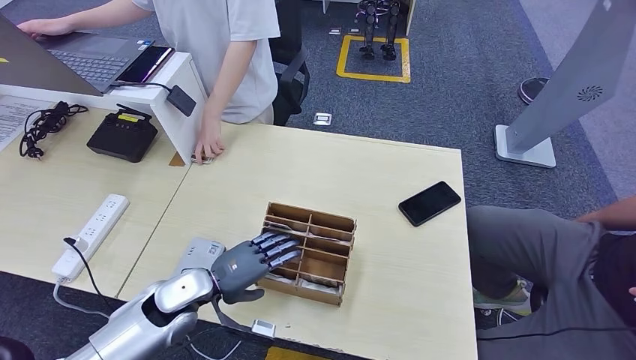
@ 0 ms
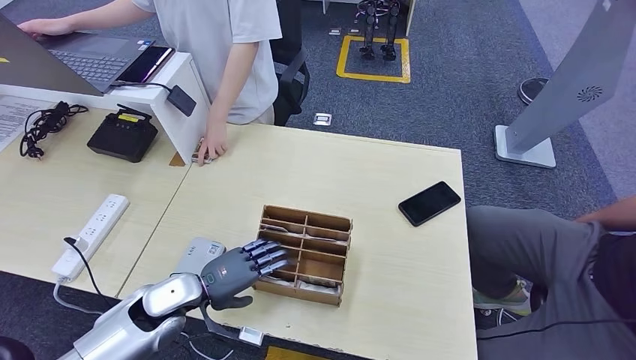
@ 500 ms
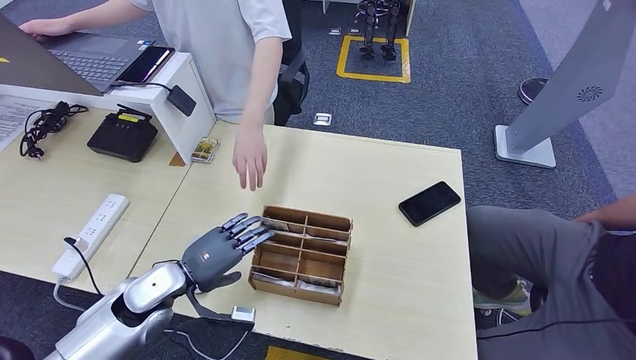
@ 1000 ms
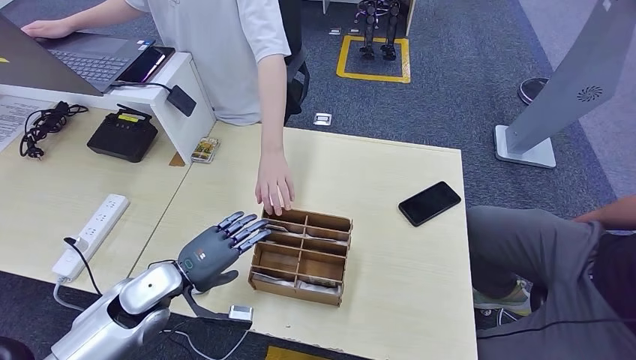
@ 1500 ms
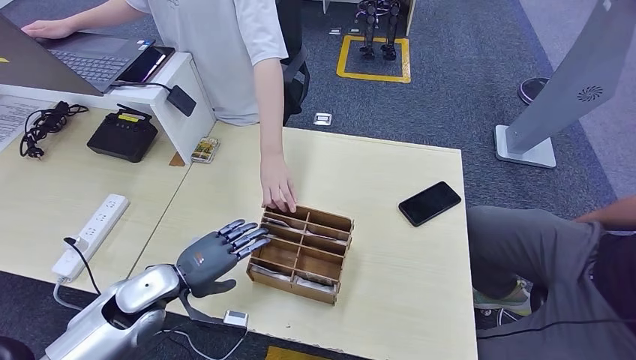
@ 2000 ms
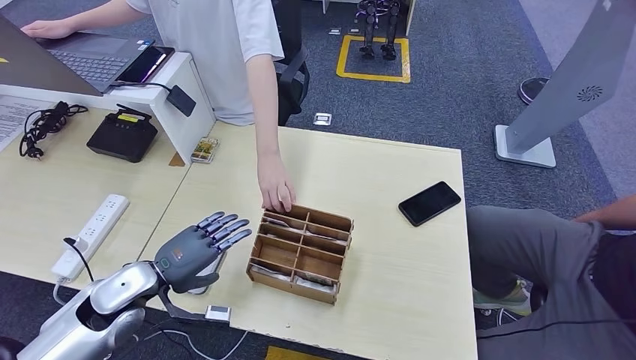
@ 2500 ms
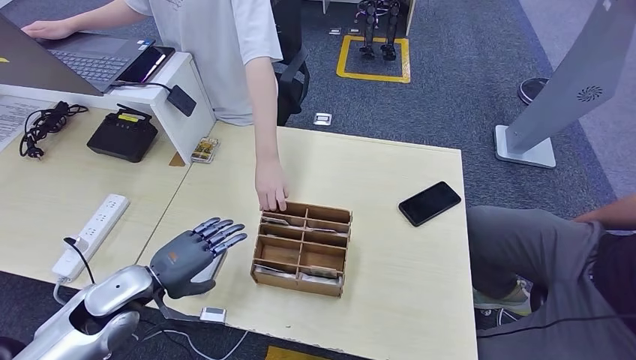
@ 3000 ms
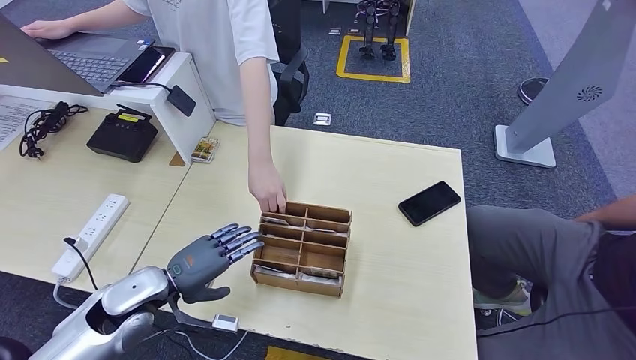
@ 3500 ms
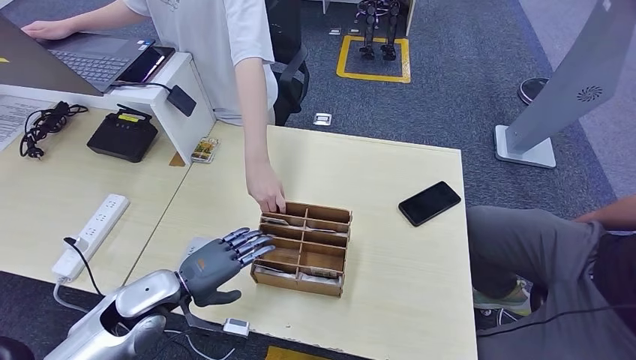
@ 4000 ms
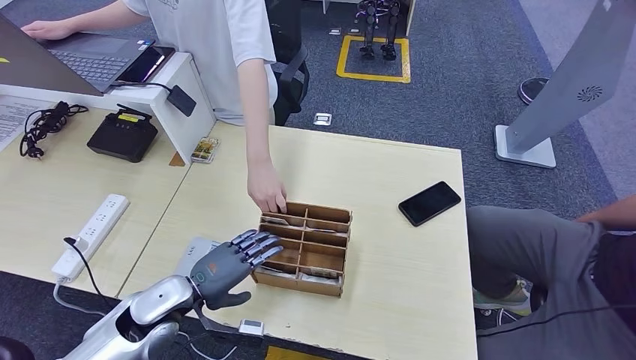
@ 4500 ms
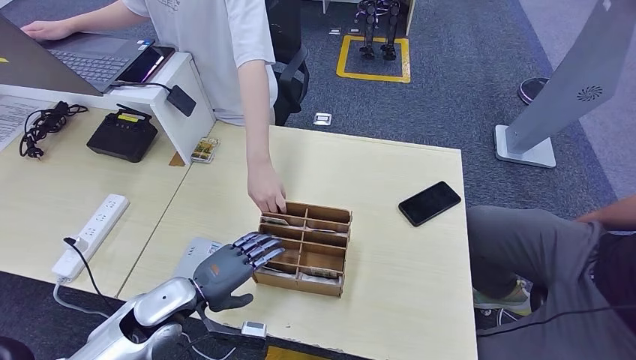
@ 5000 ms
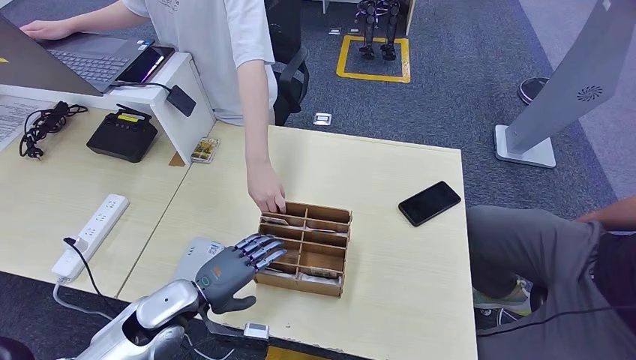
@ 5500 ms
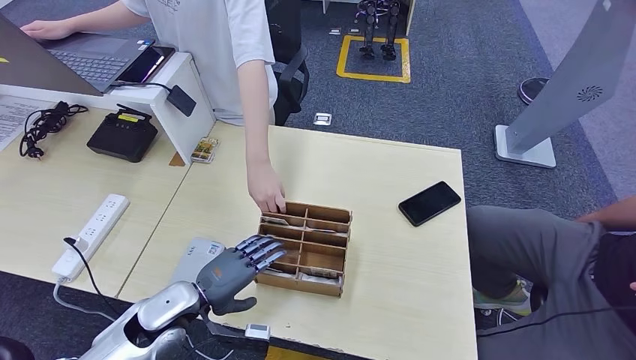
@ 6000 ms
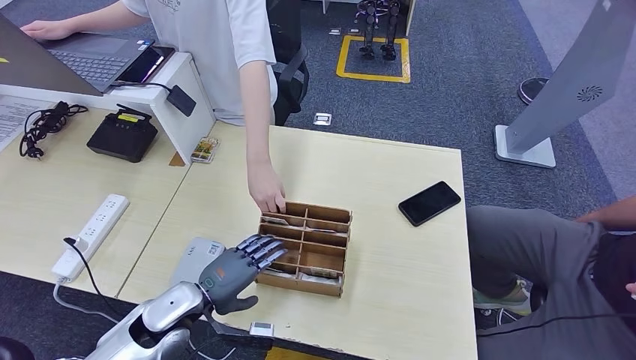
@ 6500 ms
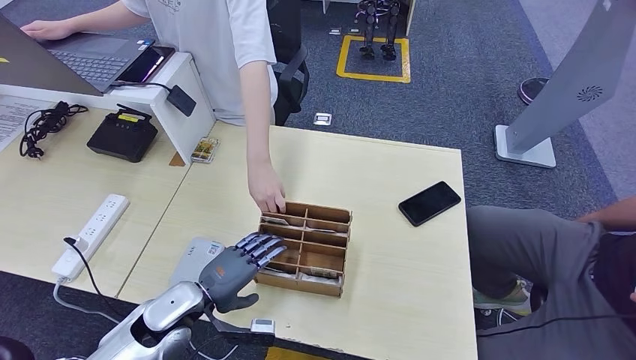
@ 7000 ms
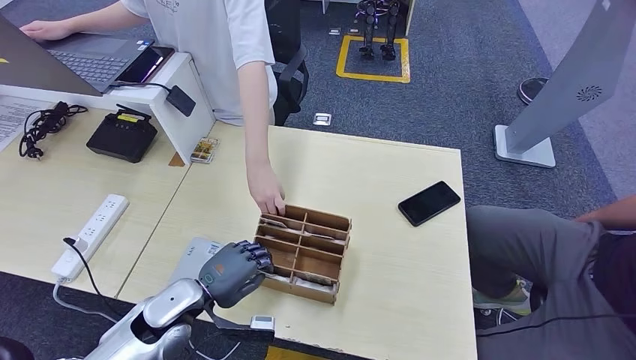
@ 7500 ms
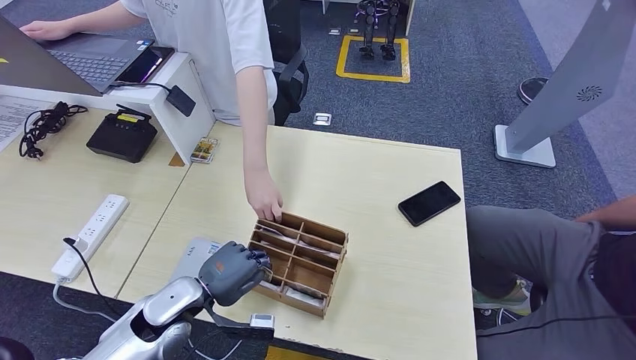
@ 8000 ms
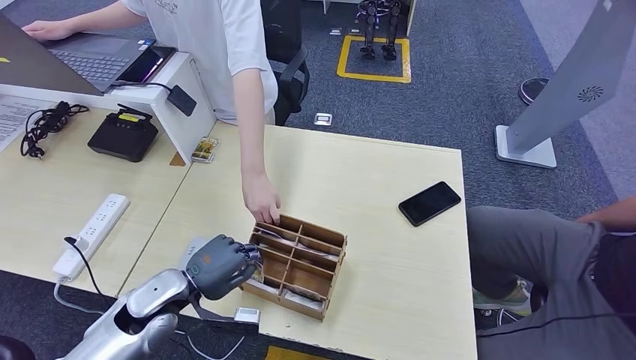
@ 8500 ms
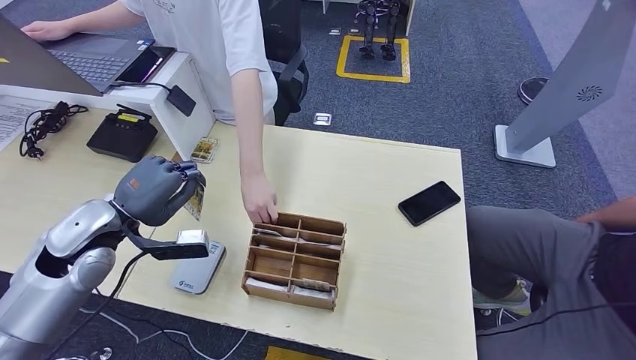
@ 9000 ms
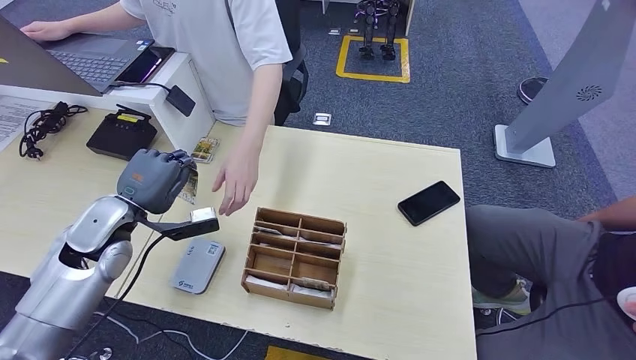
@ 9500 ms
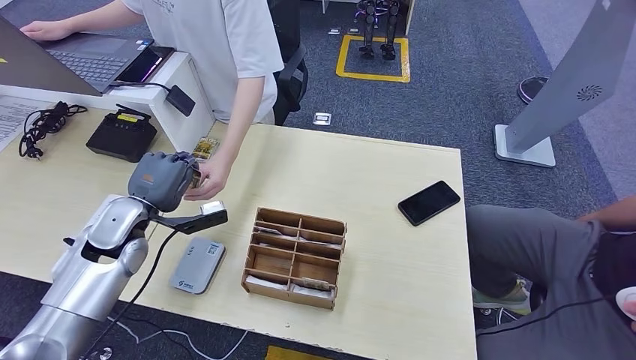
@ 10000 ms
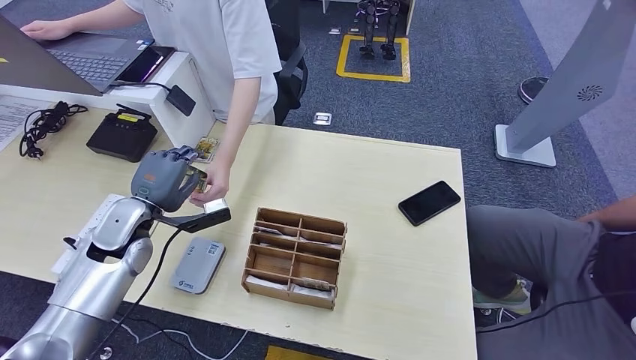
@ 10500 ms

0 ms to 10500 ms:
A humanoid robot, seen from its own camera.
Step, 0 ms to 7500 ms: Pick up the room key from the key card box.
Step, 8000 ms to 10500 ms: Hand the room key to the person.
0 ms to 2000 ms: The left hand moves approximately 5 cm.
2000 ms to 8500 ms: The hands stay close to where they were, moving slightly.
8500 ms to 10500 ms: The left hand shifts some 15 cm forward, to the left and upward.

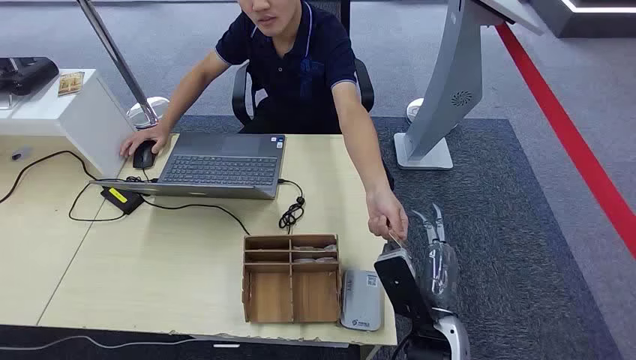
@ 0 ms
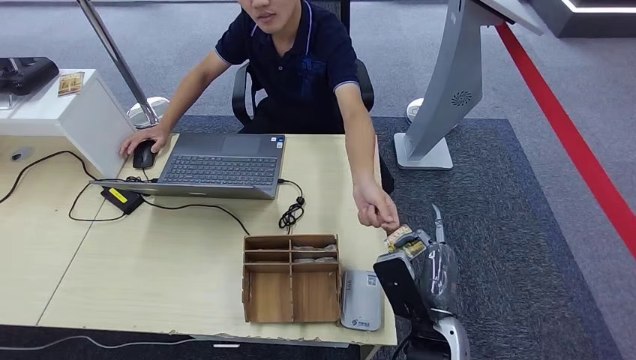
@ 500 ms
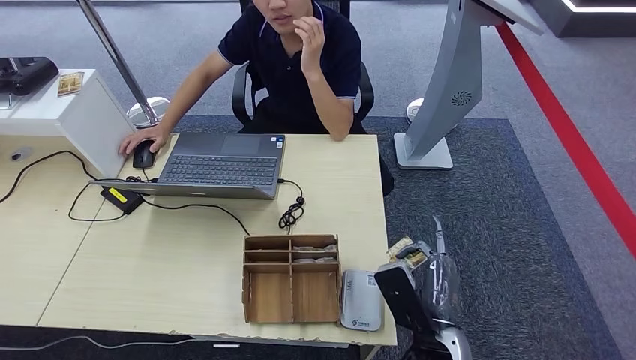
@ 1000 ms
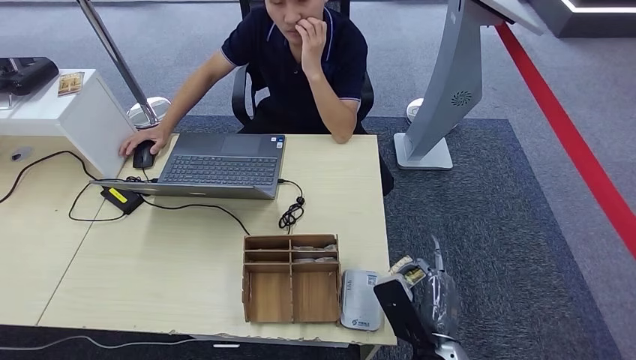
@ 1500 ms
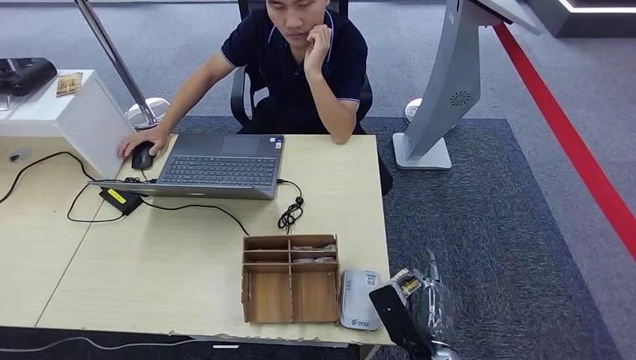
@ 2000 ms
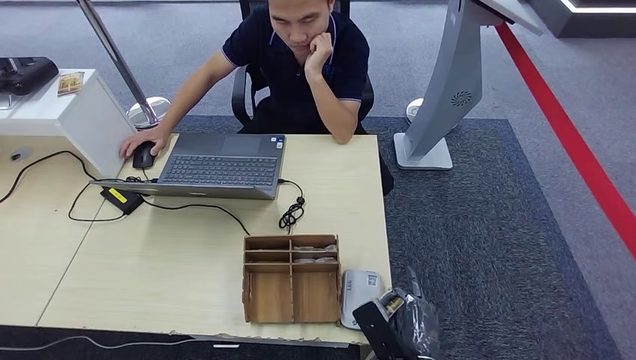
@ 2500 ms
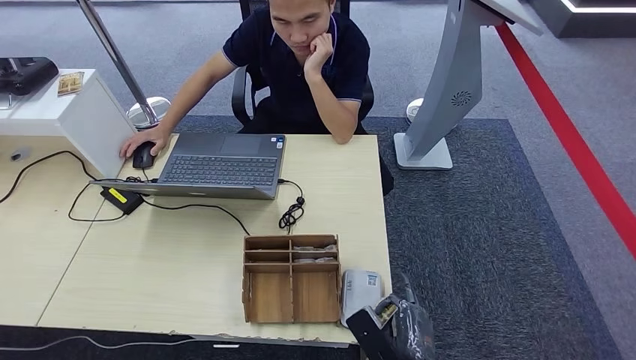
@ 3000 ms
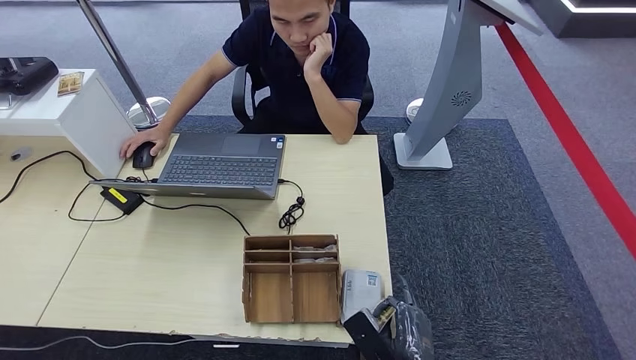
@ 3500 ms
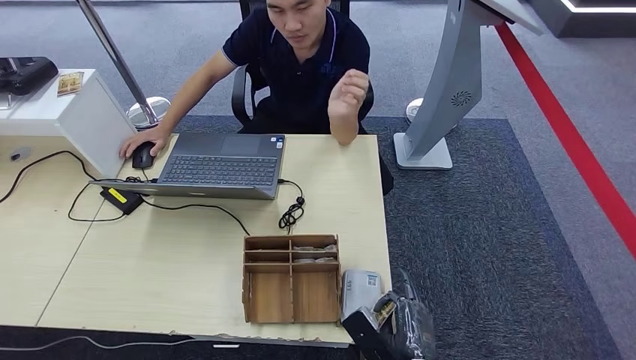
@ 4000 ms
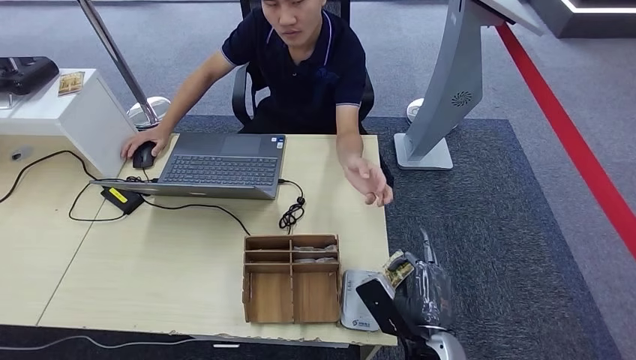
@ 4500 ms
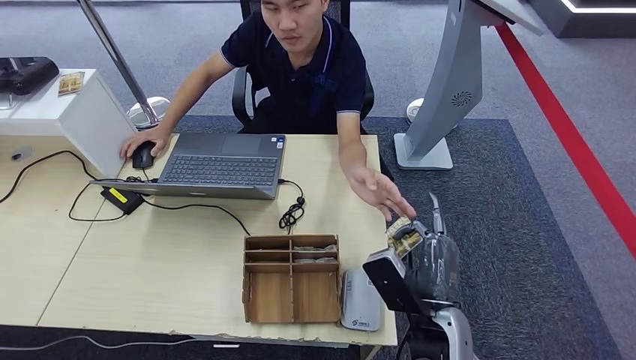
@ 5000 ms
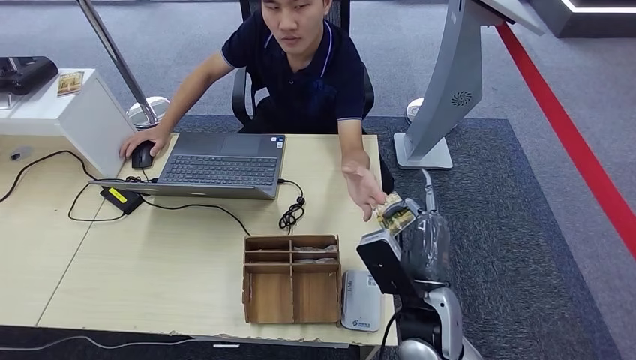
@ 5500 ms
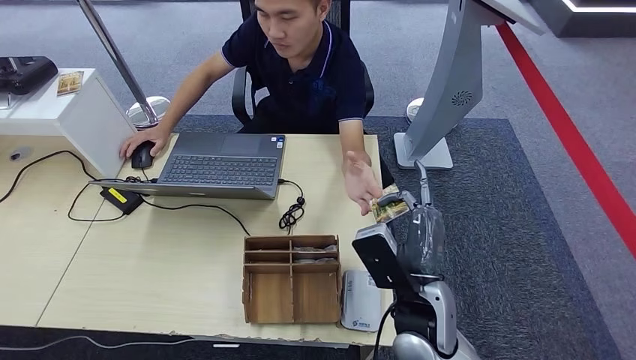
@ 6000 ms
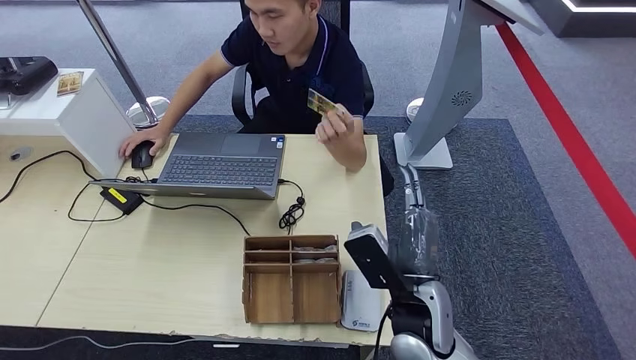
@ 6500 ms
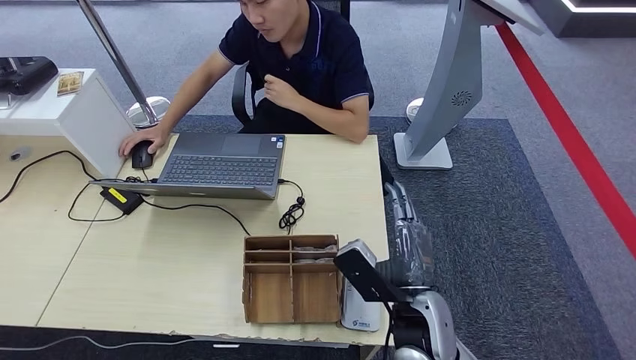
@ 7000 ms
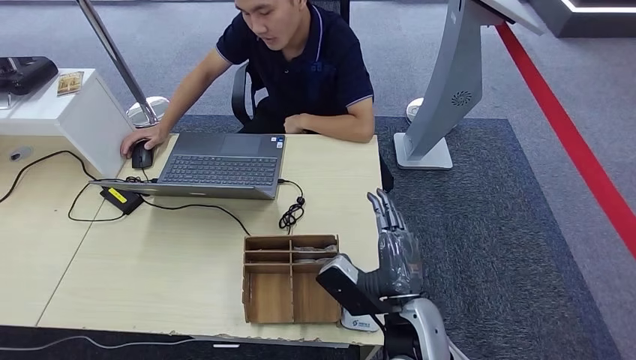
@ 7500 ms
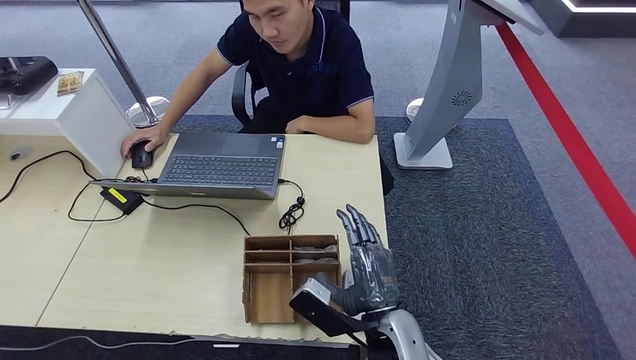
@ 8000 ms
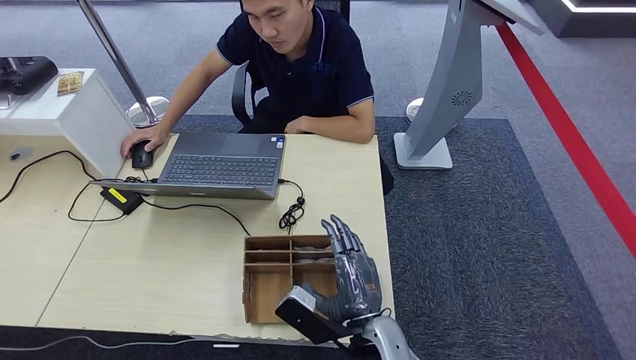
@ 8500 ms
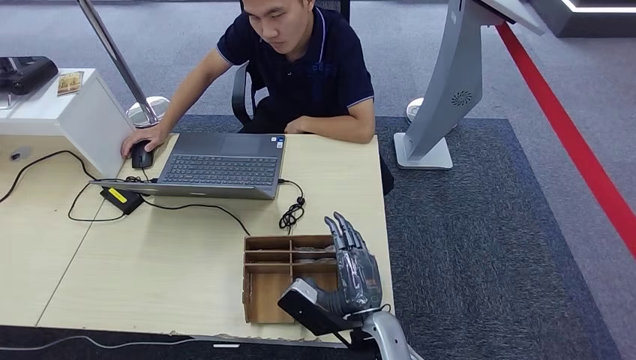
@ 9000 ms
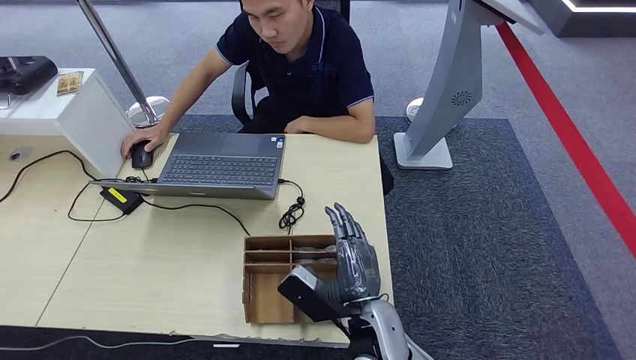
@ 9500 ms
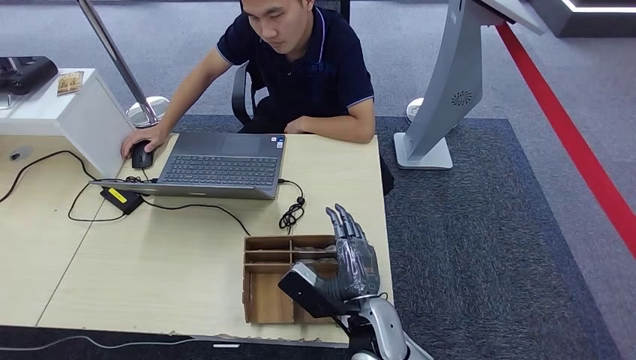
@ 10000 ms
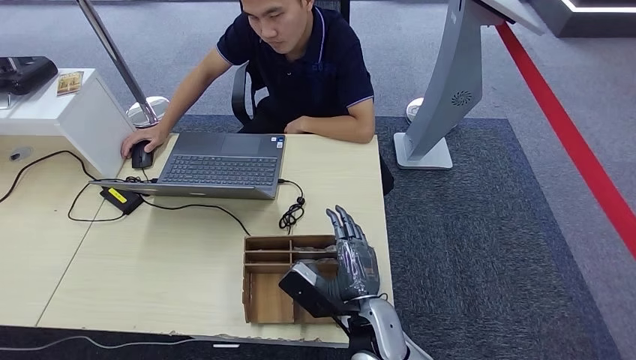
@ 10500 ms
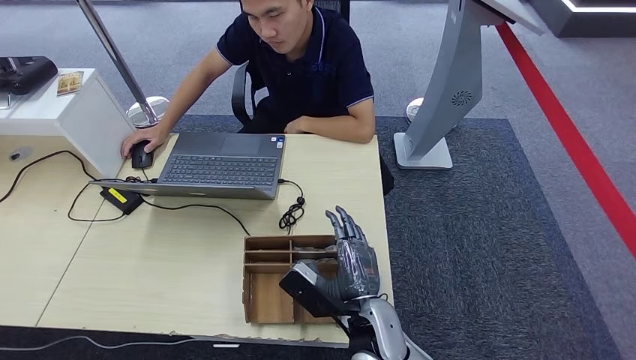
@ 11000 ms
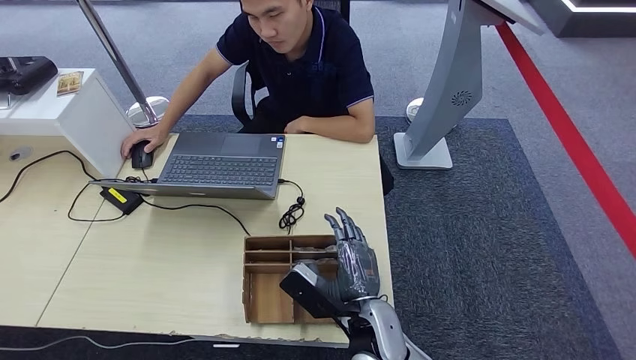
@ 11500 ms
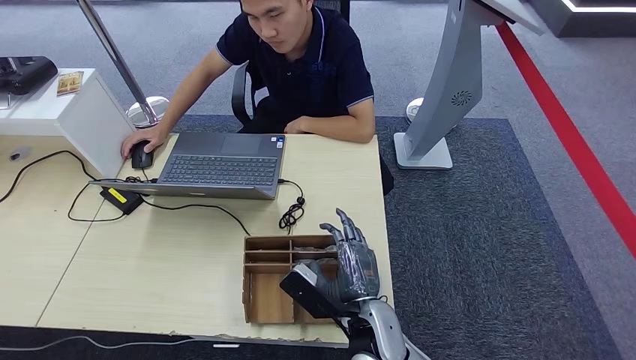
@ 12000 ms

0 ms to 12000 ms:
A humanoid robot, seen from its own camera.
Step, 0 ms to 1000 ms: Take the ID card from the person's hand.
Step, 1500 ms to 5000 ms: Place the ID card on the card reader.
Step, 5500 ms to 7000 ms: Hand the ID card to the person.
4000 ms to 6000 ms: The right hand goes some 15 cm upward and forward.
6000 ms to 8000 ms: The right hand changes place by some 5 cm.
8000 ms to 10000 ms: The hands move only a little.
10000 ms to 12000 ms: The two hands keep their place.
